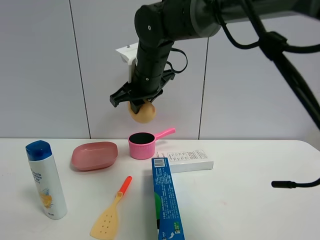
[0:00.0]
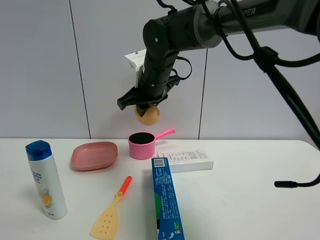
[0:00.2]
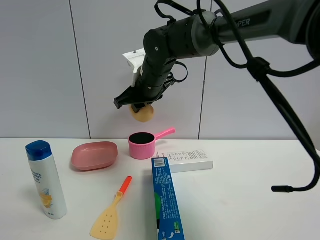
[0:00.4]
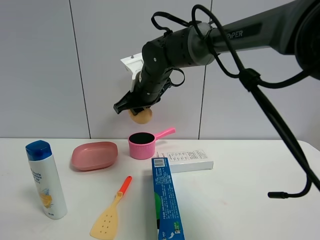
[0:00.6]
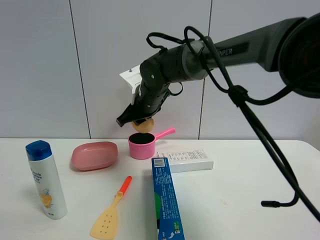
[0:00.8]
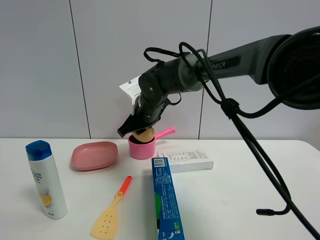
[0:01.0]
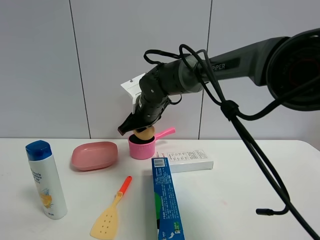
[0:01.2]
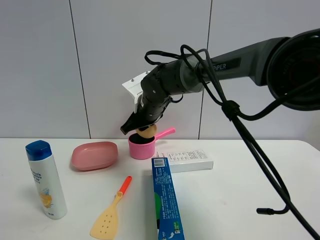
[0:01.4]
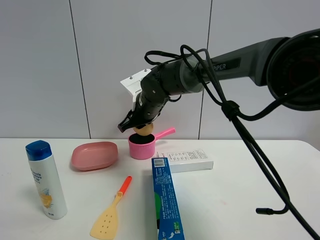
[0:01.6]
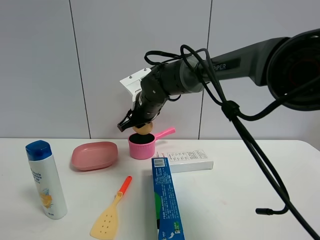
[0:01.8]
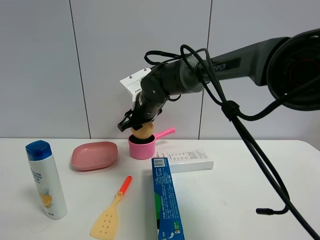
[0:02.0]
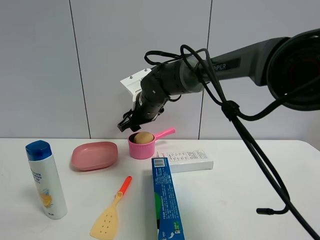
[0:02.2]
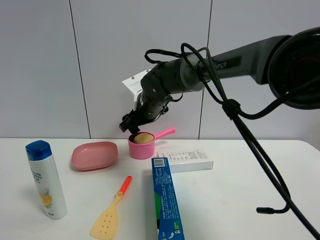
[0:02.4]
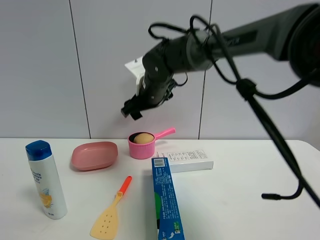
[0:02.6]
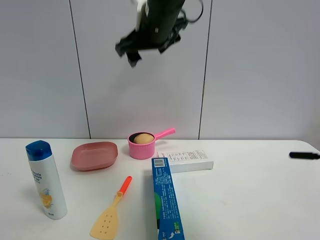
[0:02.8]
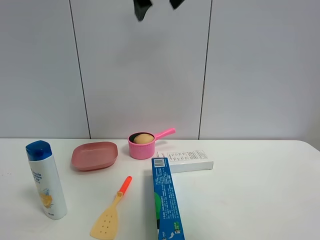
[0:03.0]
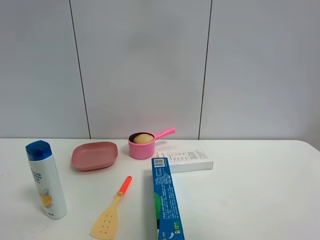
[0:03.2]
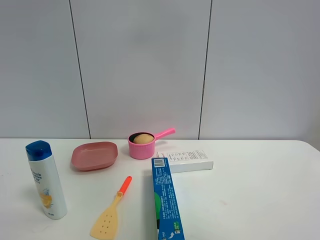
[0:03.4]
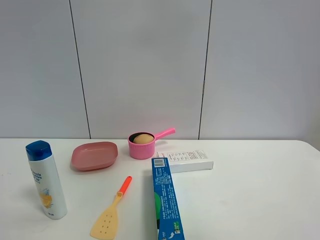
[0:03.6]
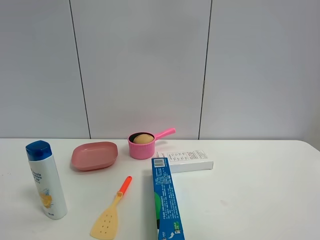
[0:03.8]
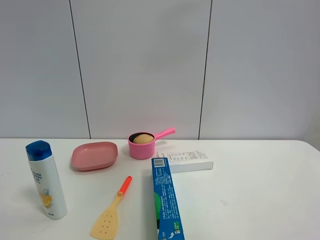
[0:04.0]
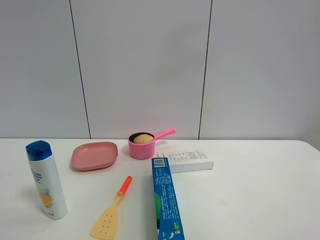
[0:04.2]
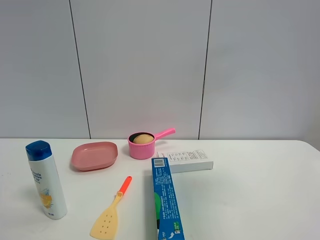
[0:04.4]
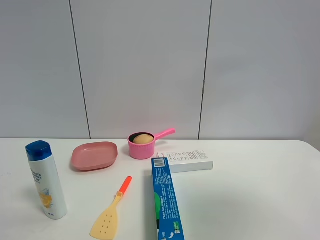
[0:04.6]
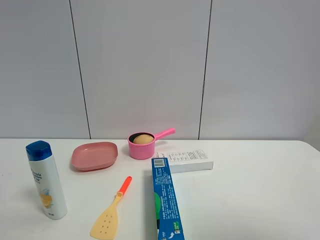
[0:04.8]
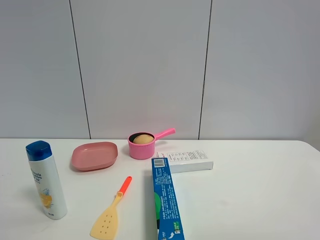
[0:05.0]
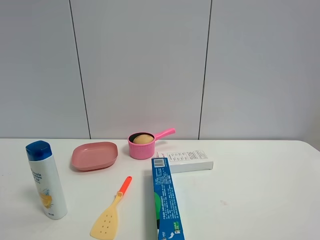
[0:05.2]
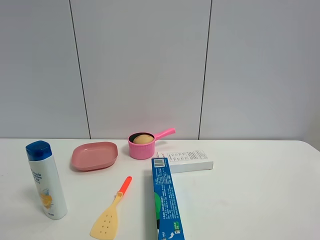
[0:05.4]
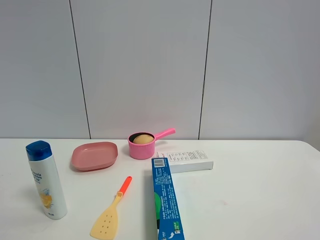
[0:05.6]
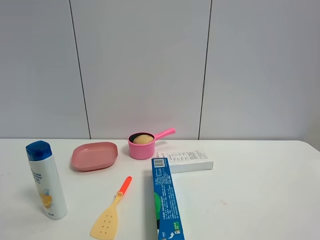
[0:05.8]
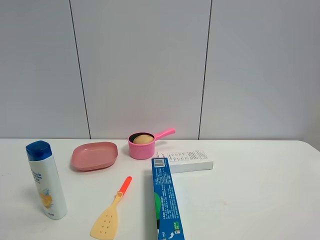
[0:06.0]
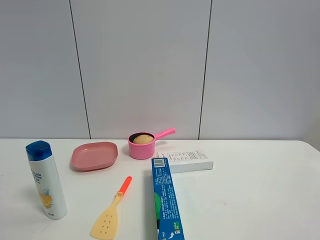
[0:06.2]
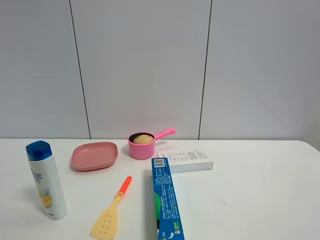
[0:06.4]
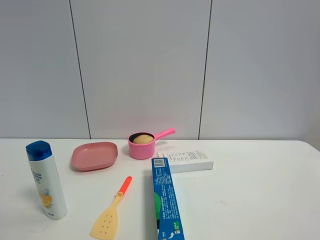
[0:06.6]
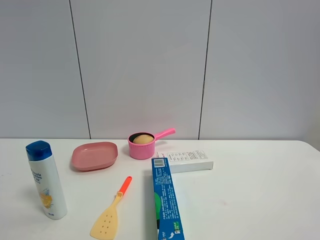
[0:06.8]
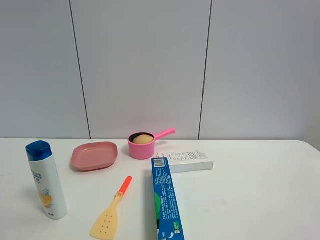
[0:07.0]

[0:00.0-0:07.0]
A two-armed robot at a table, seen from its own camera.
Task of the whole recording: the gripper move the object.
Step, 0:00.0 to 0:02.4: Place the egg yolk pastry into the pink pot with the right gripper.
0:00.0 to 0:01.4: The right gripper heads downward, covering roughly 10 cm.
0:01.4 to 0:02.8: The right gripper goes some 20 cm upward, and opens up.
0:02.8 to 0:04.2: The right gripper travels to the right, backward and upward by approximately 25 cm.
0:04.2 to 0:05.6: The right gripper is displaced backward, downward and to the right by roughly 30 cm.

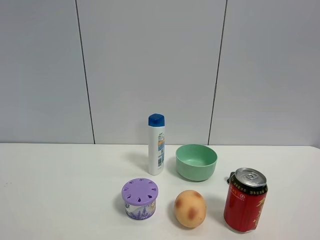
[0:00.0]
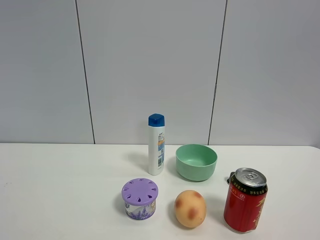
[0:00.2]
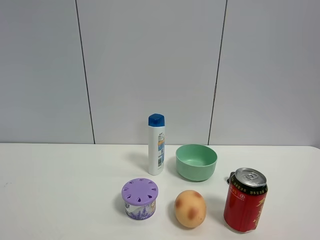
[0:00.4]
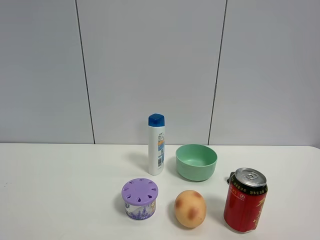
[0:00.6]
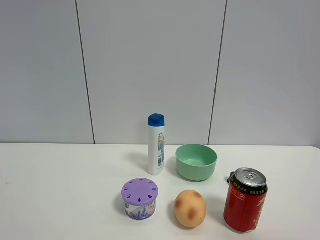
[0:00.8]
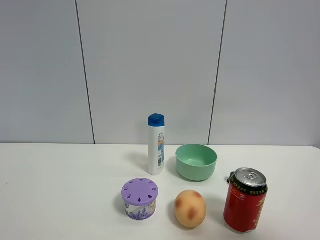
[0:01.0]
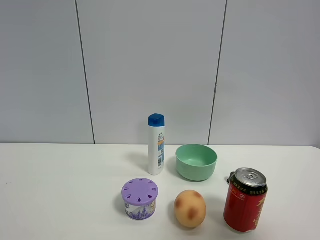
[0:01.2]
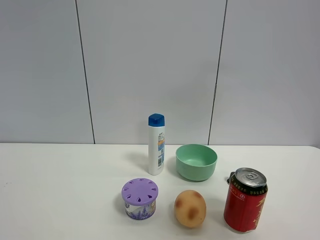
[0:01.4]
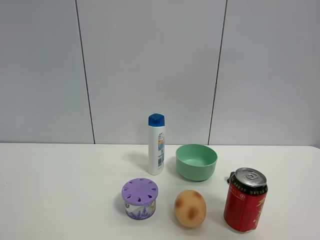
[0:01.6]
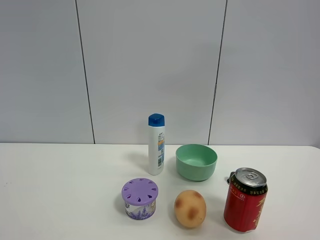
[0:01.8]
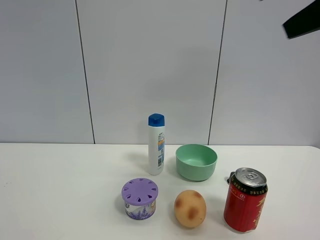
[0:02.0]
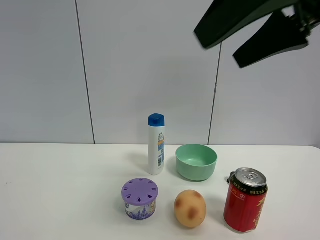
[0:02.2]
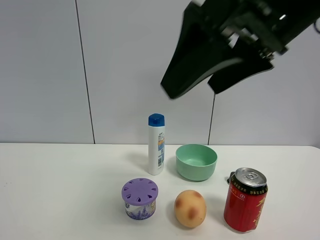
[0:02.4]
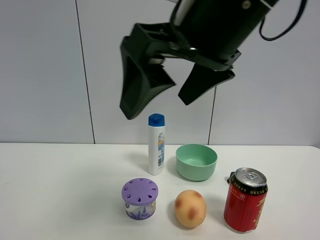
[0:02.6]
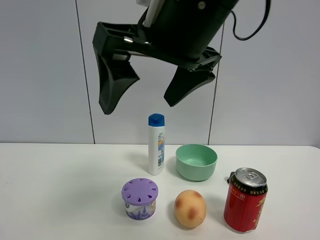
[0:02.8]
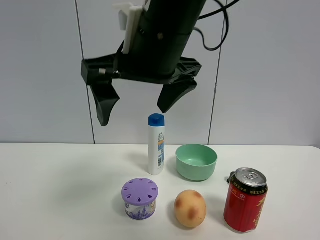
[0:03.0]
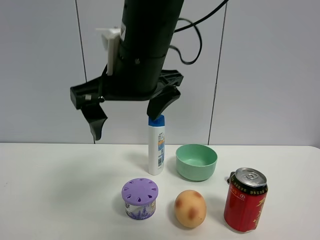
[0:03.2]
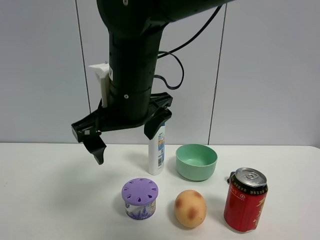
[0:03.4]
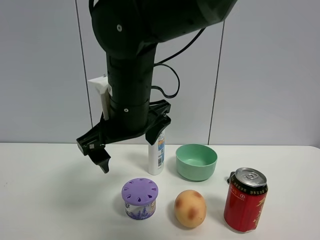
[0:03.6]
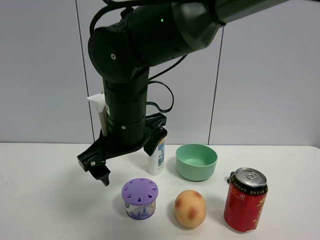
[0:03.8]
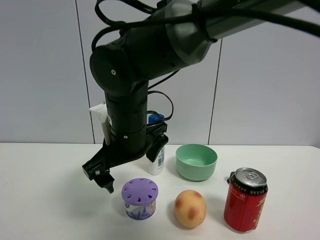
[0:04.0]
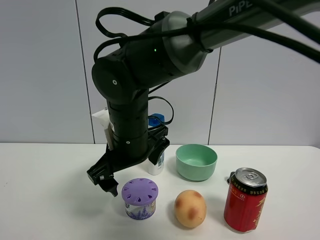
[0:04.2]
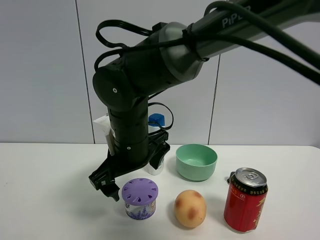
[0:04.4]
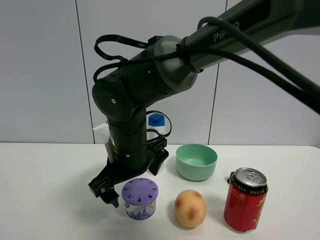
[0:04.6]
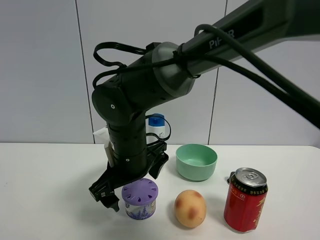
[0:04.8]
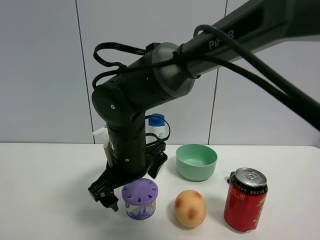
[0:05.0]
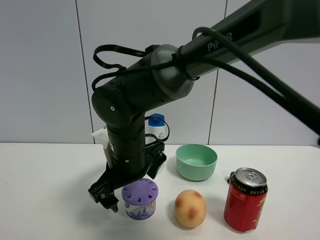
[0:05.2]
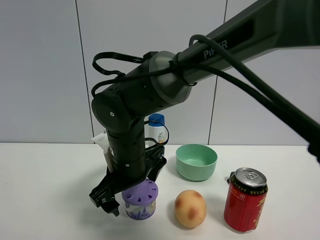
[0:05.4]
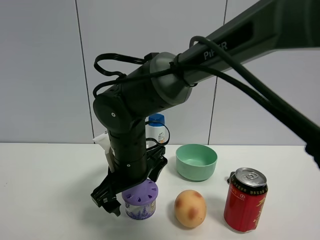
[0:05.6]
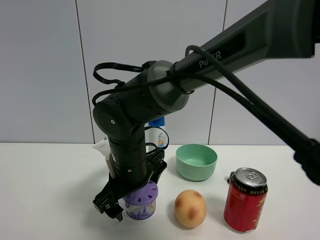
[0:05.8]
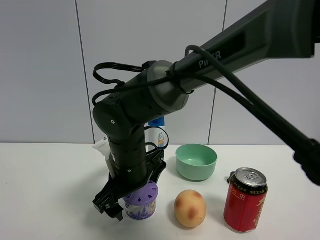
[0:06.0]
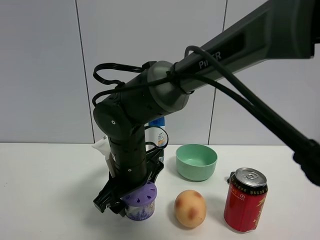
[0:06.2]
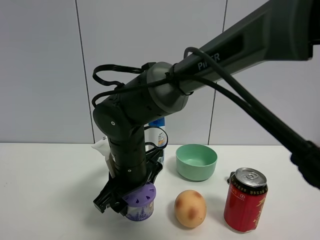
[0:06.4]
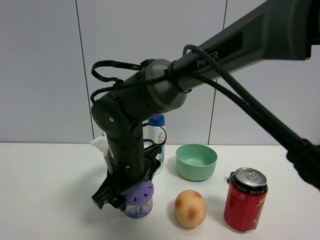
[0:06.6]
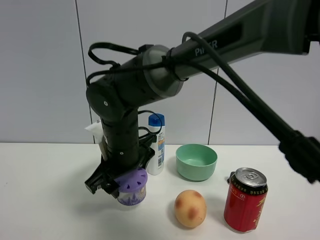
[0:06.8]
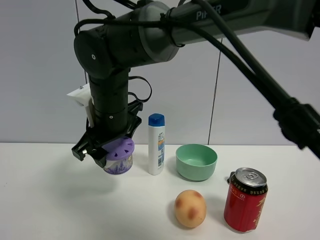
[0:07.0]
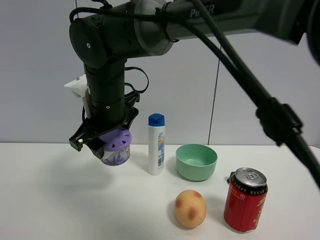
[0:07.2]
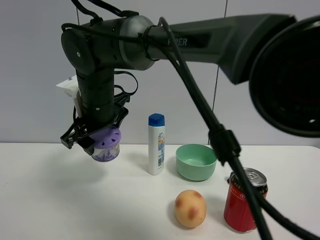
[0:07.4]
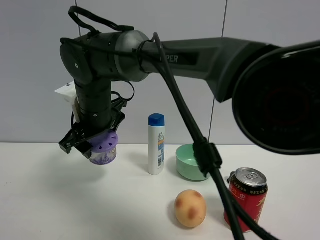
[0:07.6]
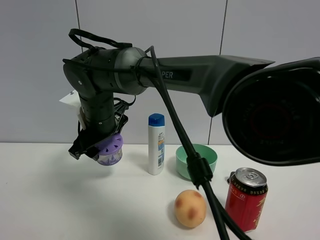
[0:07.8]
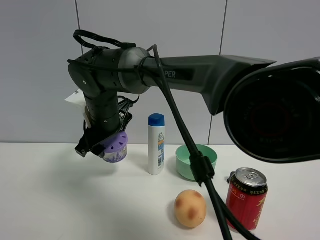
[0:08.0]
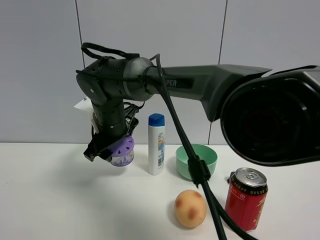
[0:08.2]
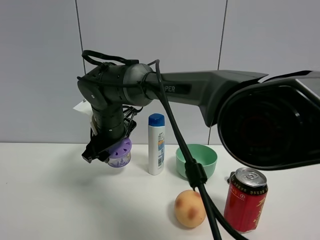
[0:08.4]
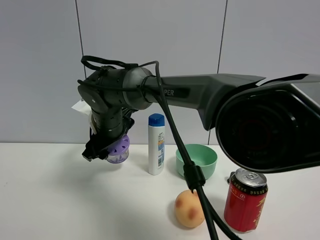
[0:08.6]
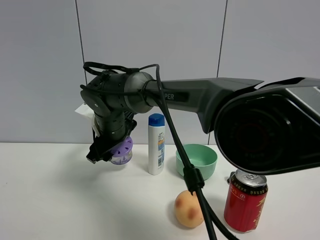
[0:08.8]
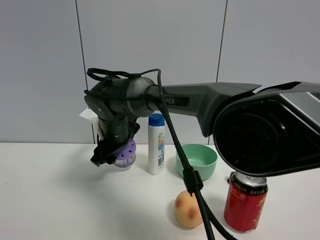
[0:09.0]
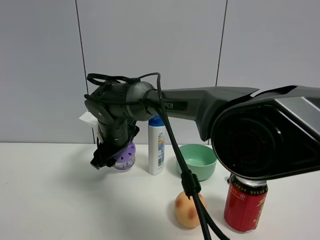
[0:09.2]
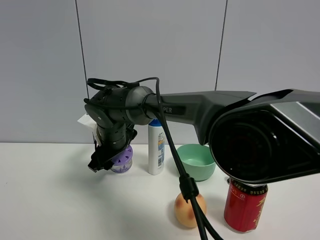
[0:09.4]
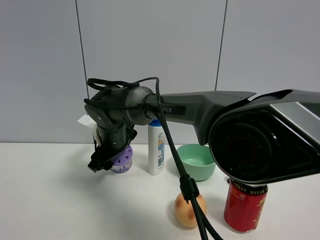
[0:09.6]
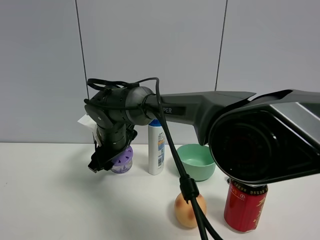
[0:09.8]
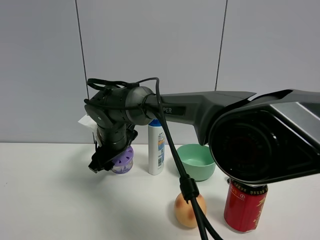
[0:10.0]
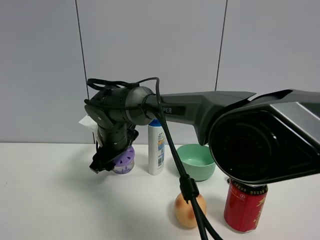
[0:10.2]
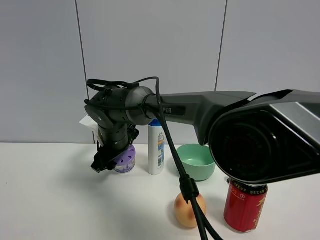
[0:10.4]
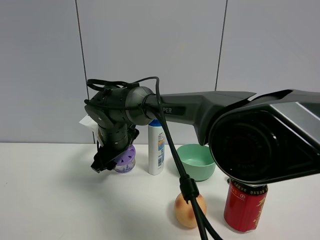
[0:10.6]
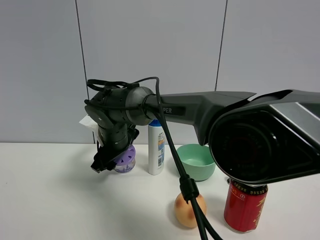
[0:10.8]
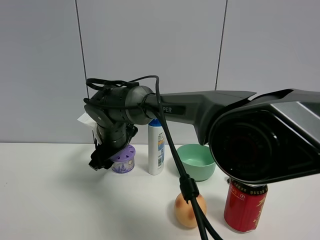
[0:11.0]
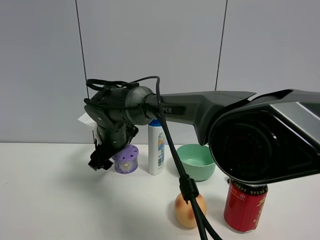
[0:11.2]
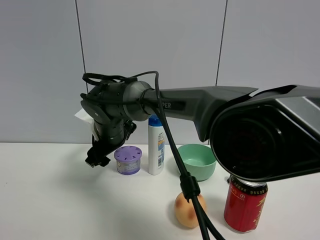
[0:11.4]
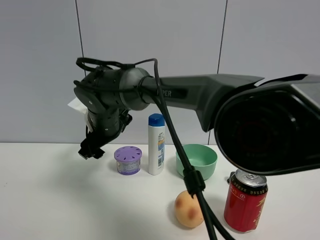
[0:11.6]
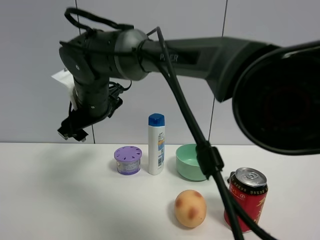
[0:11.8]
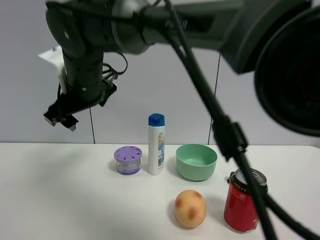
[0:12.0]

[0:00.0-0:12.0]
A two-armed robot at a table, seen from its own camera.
Task of the whole recording: the gripper move the object.
Step, 0:00.0 to 0:06.4: Grasp the Incense box with the right gripper.
Step, 0:06.6 to 0:11.2: Place the Incense box on the table with the right gripper.
0:00.0 to 0:01.6: The right gripper heads upward and forward, covering roughly 20 cm.
0:01.6 to 0:03.0: The right gripper is displaced to the left, downward and forward by about 30 cm.
0:03.0 to 0:04.4: The right gripper travels downward by about 15 cm.
0:06.0 to 0:07.6: The right gripper shifts about 10 cm upward, to the left and forward, and closes its fingers.
0:07.6 to 0:09.0: The right gripper travels downward by roughly 5 cm.
0:09.0 to 0:10.4: The grippers stay close to where they were, moving slightly.
0:10.4 to 0:12.0: The right gripper travels upward and backward by approximately 15 cm.

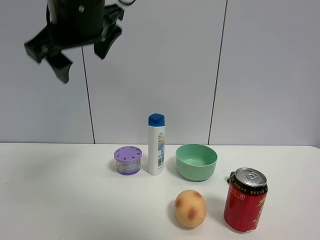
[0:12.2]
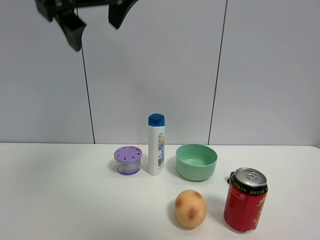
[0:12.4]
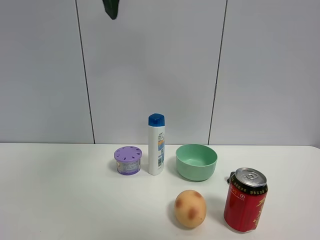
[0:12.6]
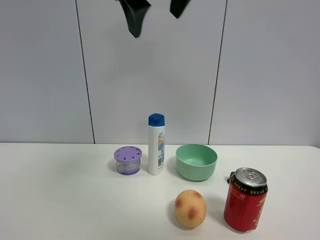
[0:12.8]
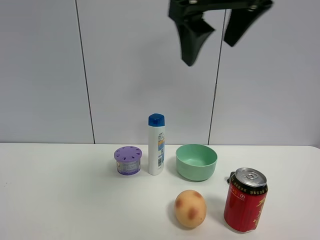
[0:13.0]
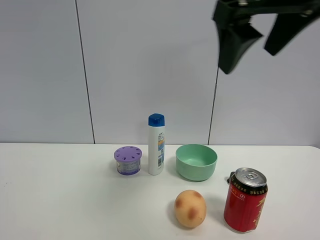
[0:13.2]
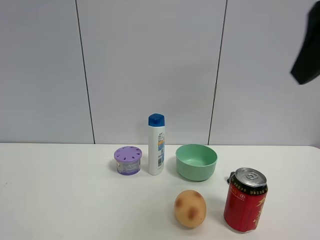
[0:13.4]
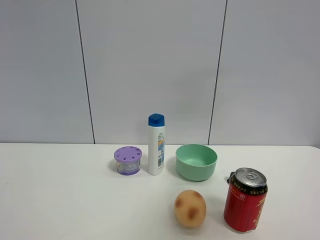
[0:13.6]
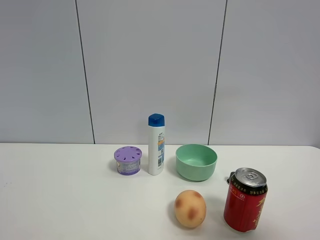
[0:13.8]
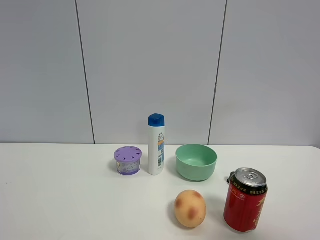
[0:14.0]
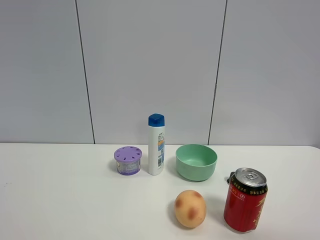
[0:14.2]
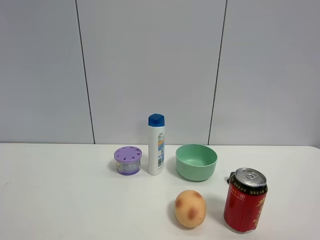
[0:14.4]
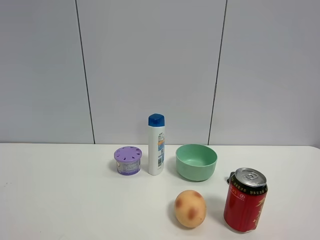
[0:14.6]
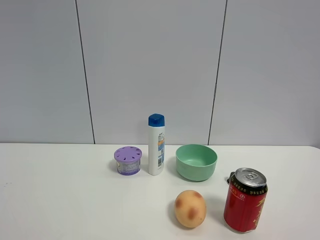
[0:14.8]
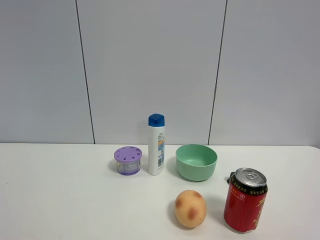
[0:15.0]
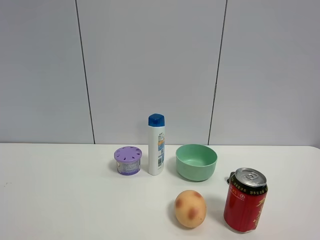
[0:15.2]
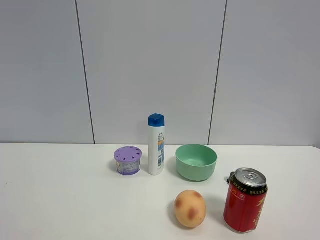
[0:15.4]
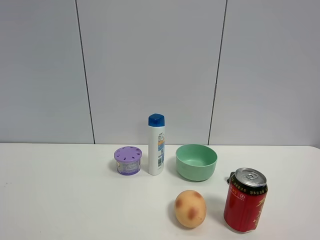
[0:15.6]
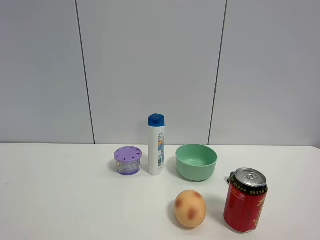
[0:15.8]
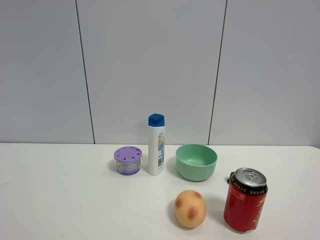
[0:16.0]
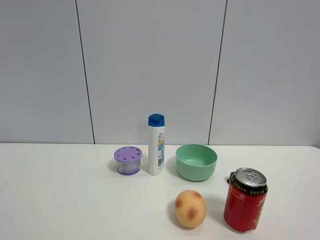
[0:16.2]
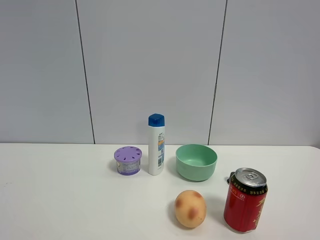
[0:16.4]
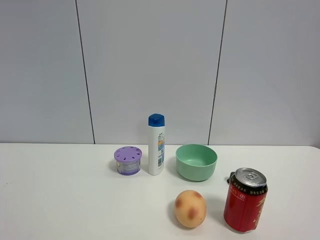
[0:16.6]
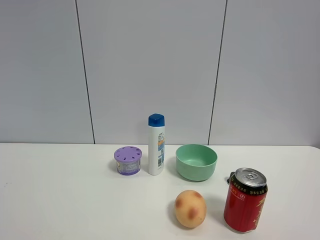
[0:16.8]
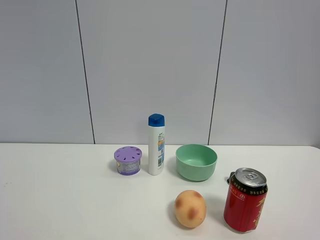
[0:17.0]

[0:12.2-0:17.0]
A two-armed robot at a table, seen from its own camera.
Task of the whole recording: the gripper move the object.
0:12.2 to 0:13.8: The right gripper is displaced to the right and backward by roughly 40 cm.
0:13.8 to 0:15.4: The right gripper shifts some 10 cm backward and downward.
0:15.4 to 0:17.0: Neither gripper changes place.
